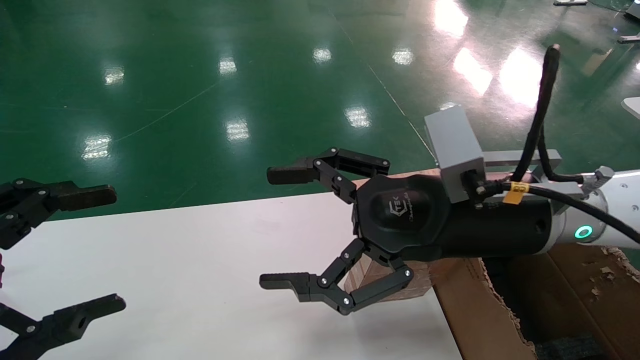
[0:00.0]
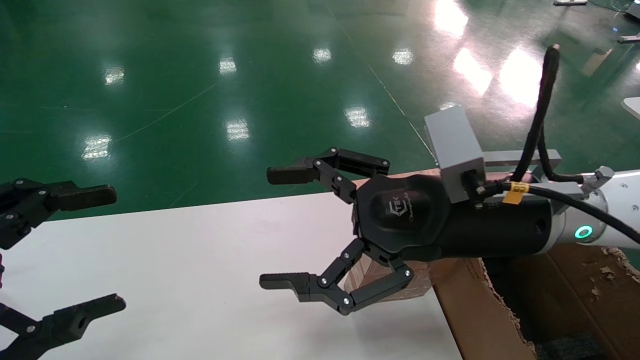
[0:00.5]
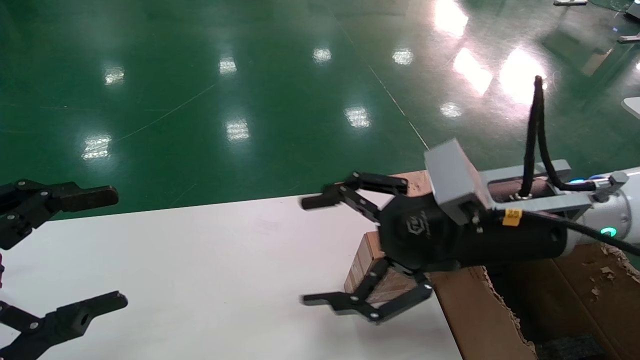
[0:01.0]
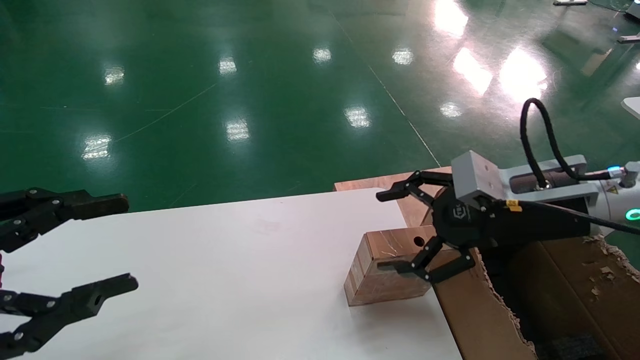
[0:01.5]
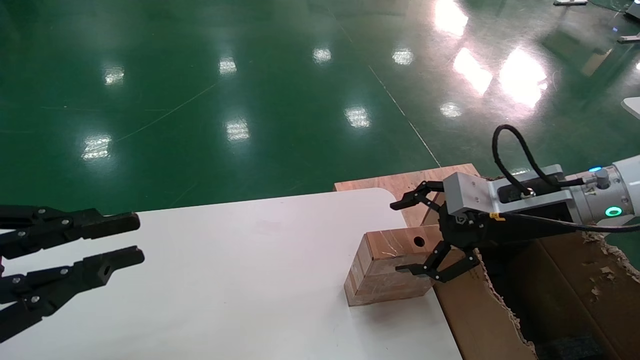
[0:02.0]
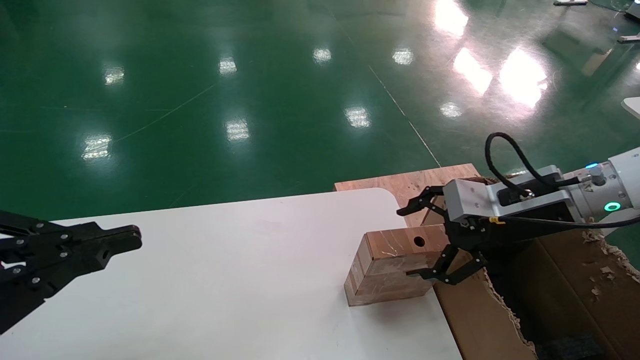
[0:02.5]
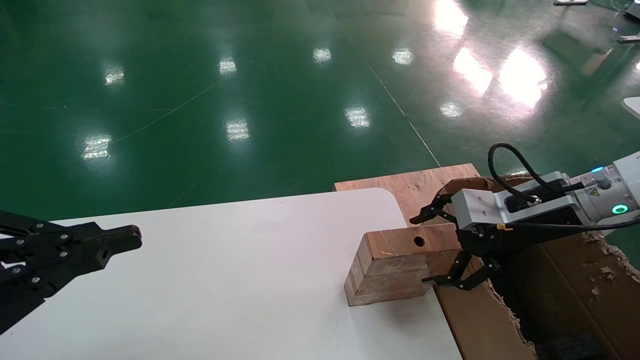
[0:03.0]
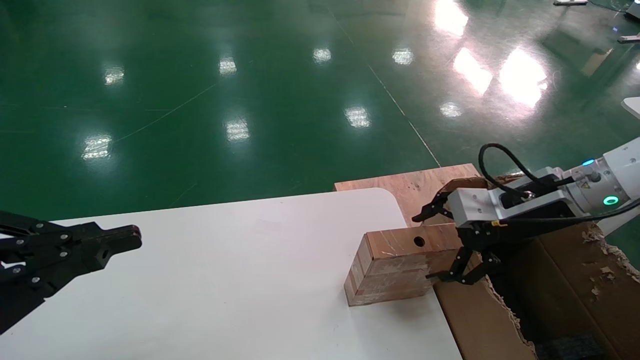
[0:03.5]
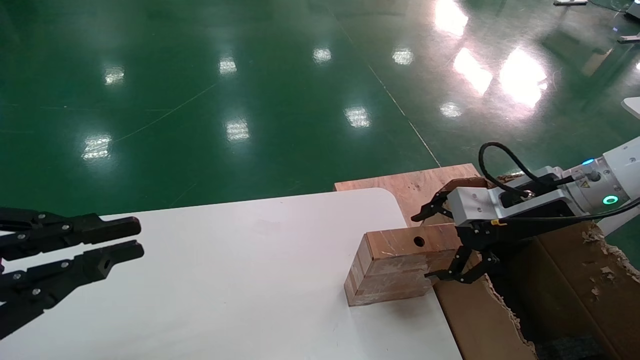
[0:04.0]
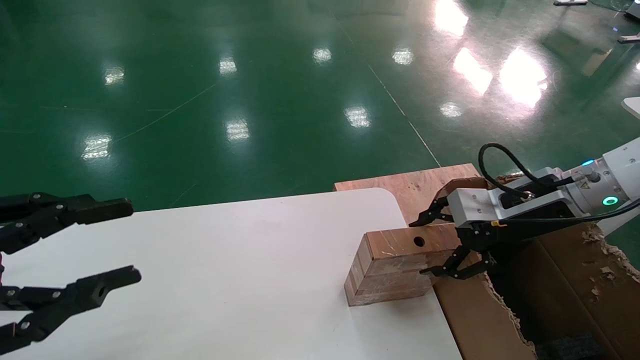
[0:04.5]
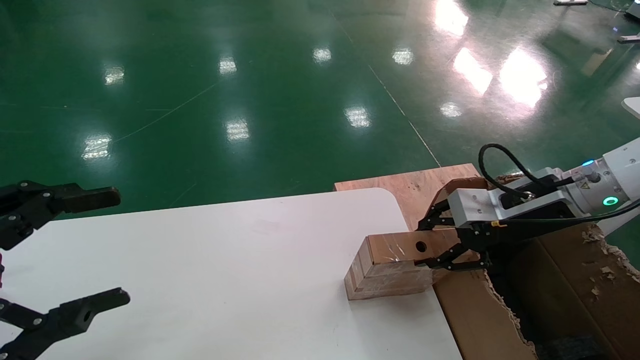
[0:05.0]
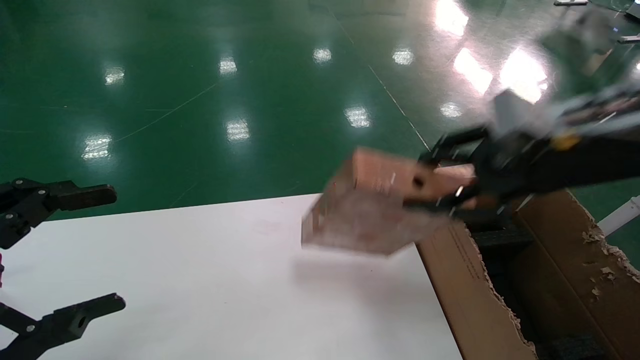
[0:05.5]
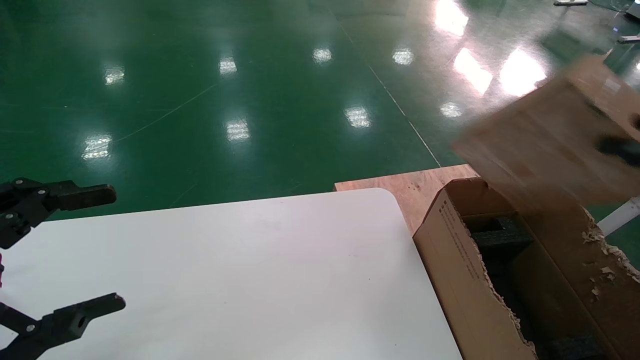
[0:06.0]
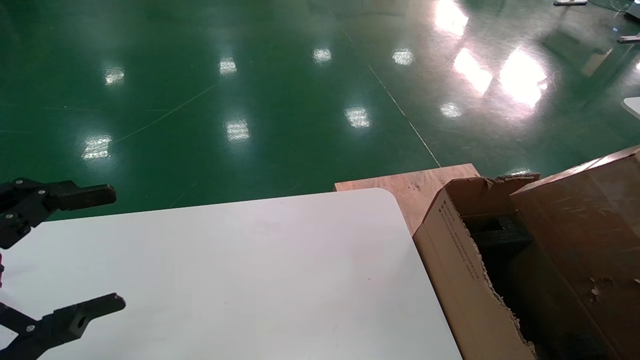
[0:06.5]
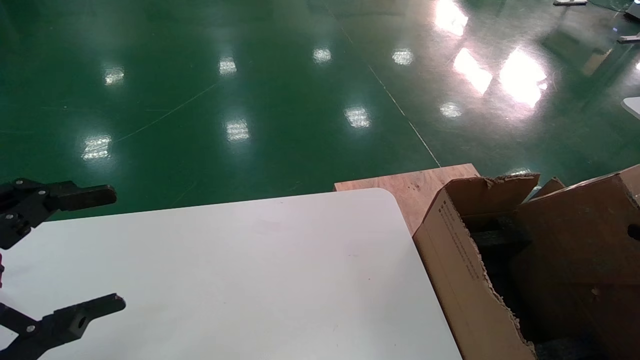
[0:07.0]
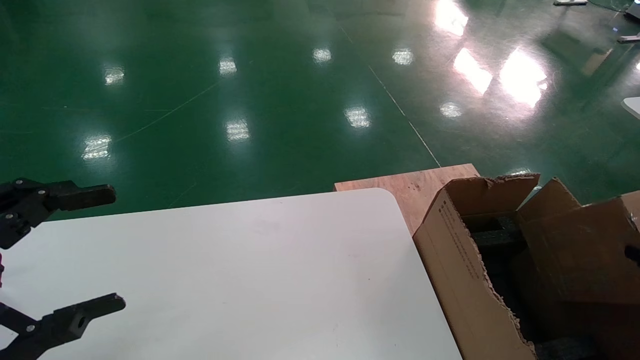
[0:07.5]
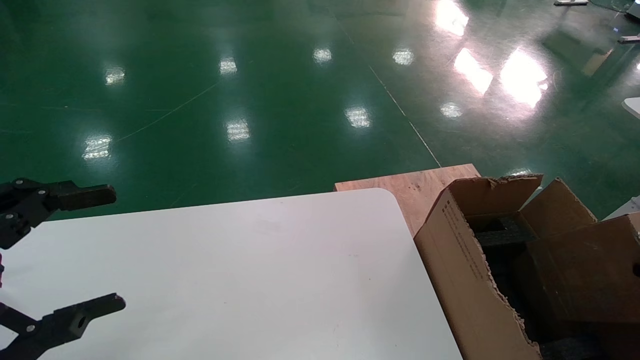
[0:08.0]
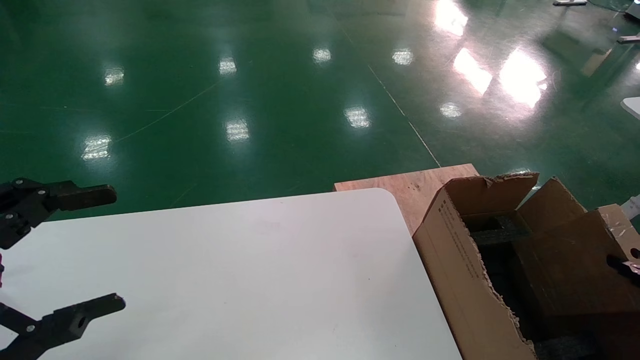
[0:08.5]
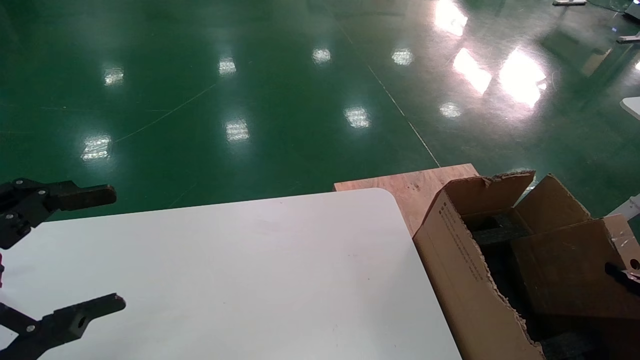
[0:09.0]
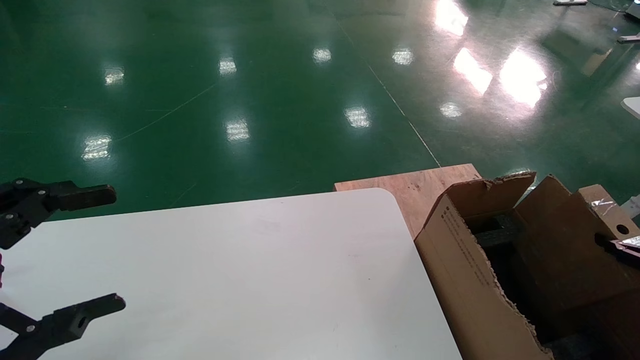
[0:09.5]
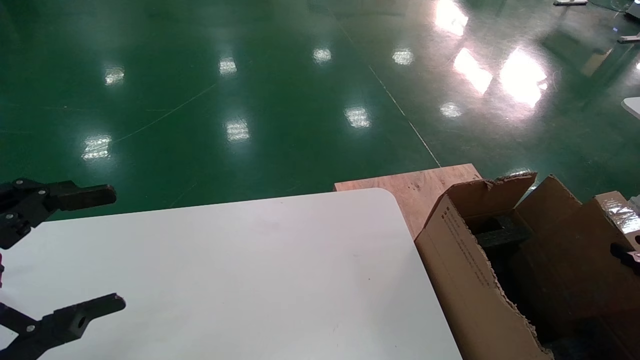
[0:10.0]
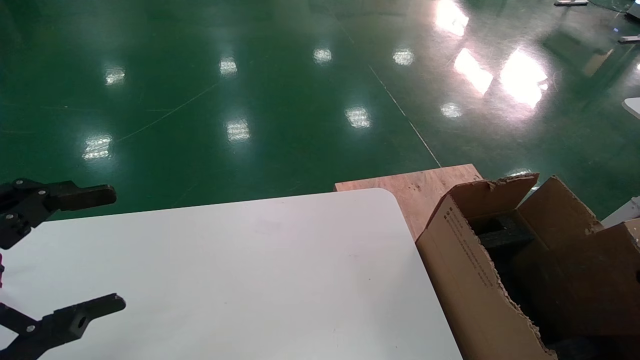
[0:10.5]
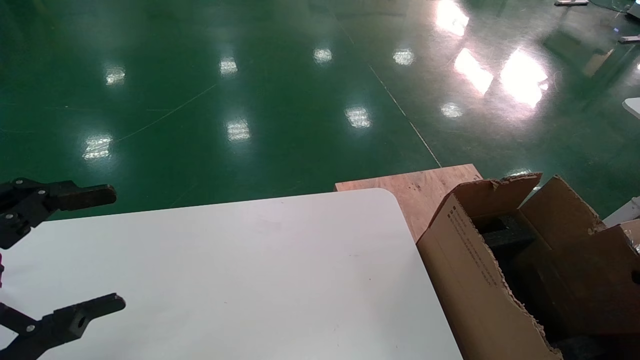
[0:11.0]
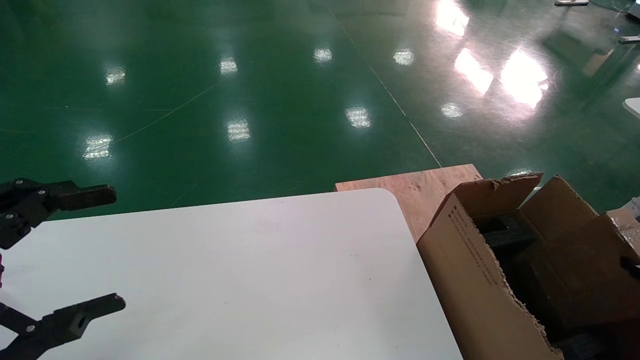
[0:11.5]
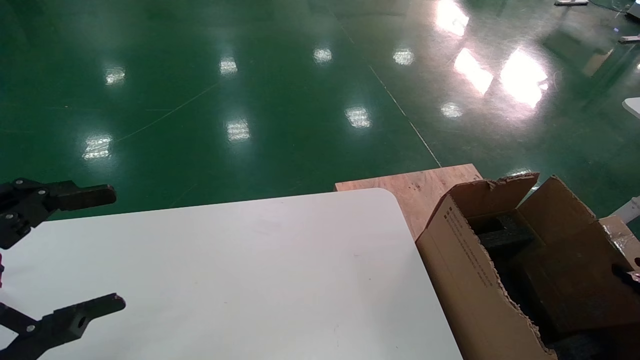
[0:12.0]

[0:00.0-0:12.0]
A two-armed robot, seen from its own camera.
Task of the whole recording: put the box on the table into the big box.
Step, 0:01.5 to 0:05.0: Pick up the mouse and the power cord paper box.
0:00.0 to 0:02.0: The left gripper closes its fingers. The right gripper shifts about 15 cm to the right and forward.
0:02.0 to 0:04.0: The grippers make only small movements.
0:04.0 to 0:06.0: The left gripper opens its fingers. Meanwhile the right gripper shifts some 25 cm backward, upward and to the right, and closes.
0:06.0 to 0:08.0: The right gripper travels downward and to the right by about 25 cm.
0:08.0 to 0:10.0: The grippers stay close to where they were, moving slightly.
0:10.0 to 0:12.0: The right gripper shifts by roughly 5 cm.

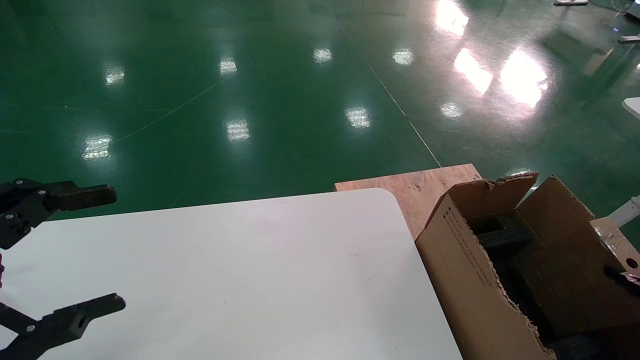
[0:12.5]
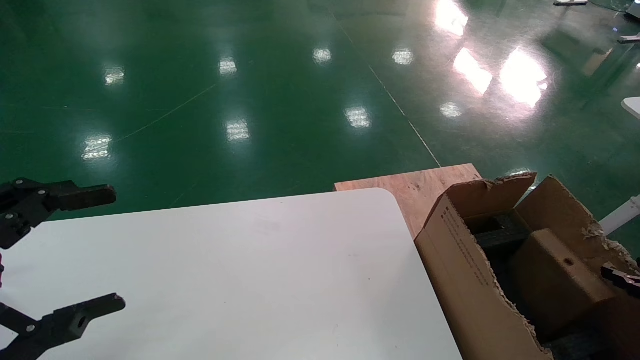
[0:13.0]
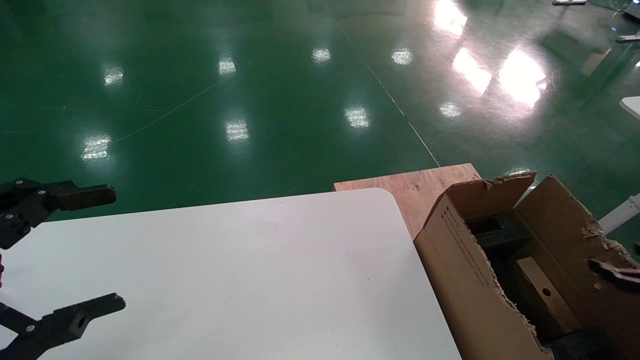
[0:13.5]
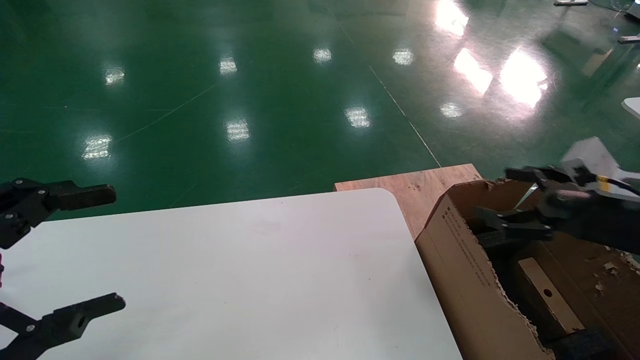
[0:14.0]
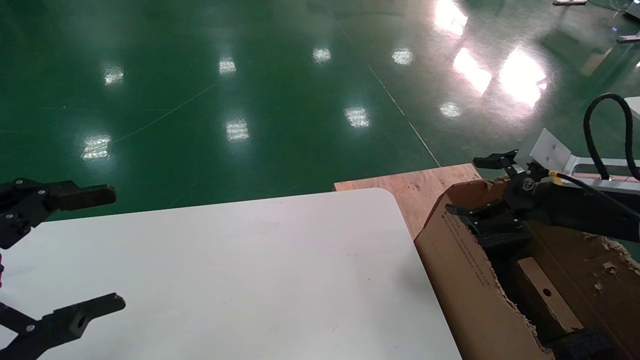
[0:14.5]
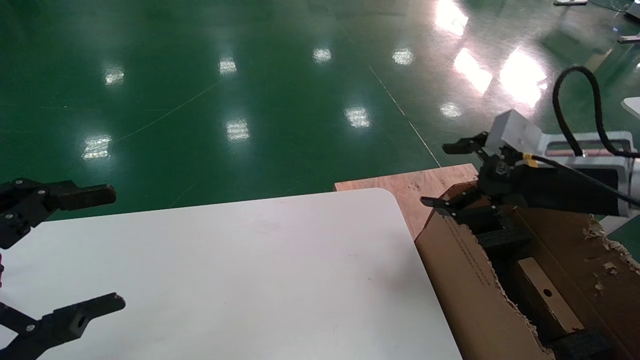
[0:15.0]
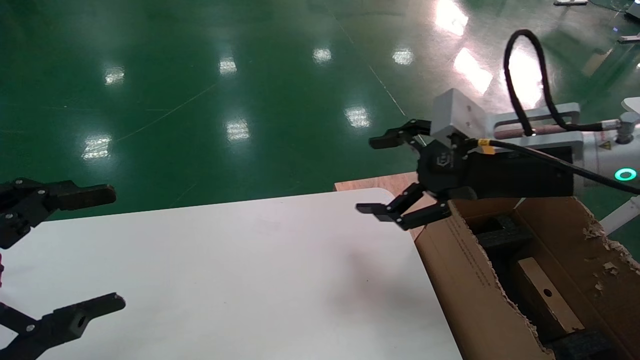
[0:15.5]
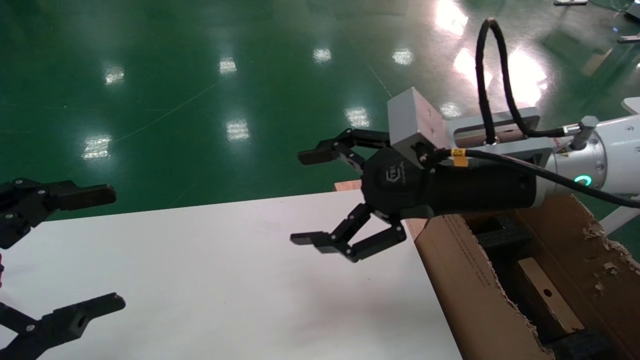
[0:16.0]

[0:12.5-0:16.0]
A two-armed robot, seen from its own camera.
Task of the whole recording: put the box on the table into the big box.
0:12.5 to 0:14.5: The right gripper is displaced to the left, upward and forward by approximately 30 cm, and opens up.
0:14.5 to 0:16.0: The right gripper moves to the left, about 15 cm.
